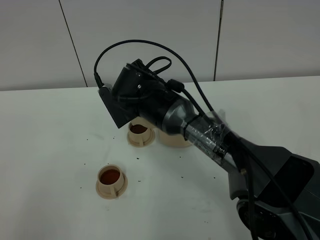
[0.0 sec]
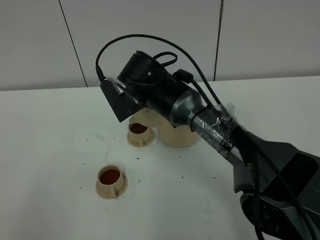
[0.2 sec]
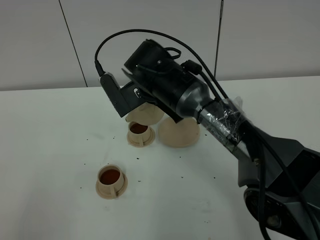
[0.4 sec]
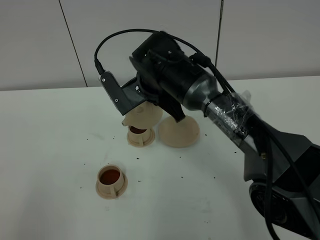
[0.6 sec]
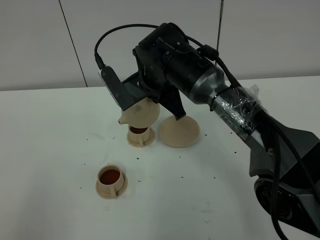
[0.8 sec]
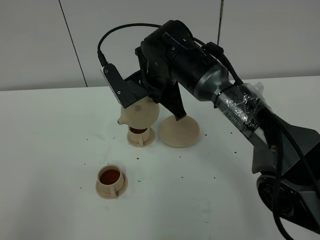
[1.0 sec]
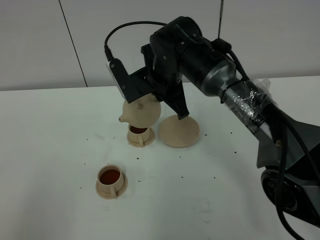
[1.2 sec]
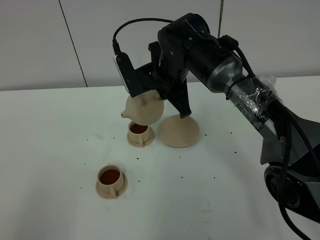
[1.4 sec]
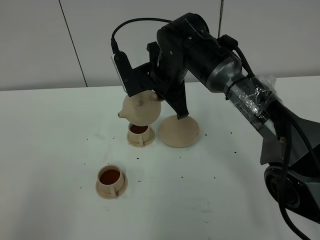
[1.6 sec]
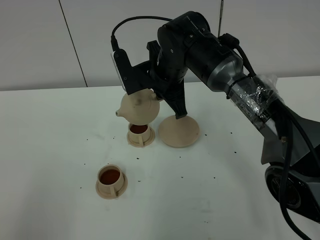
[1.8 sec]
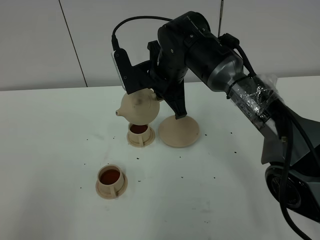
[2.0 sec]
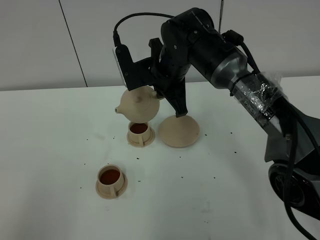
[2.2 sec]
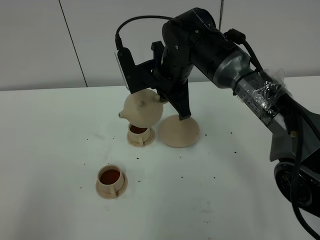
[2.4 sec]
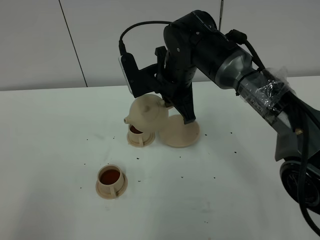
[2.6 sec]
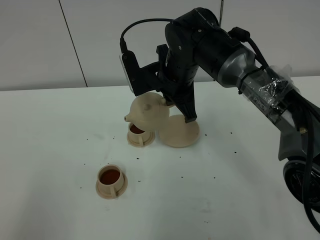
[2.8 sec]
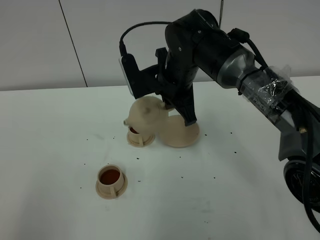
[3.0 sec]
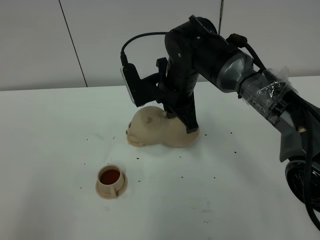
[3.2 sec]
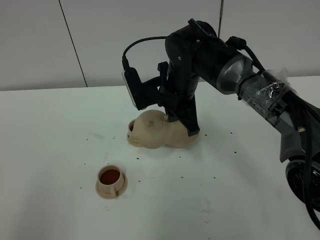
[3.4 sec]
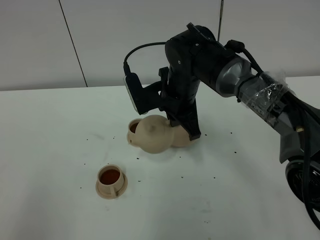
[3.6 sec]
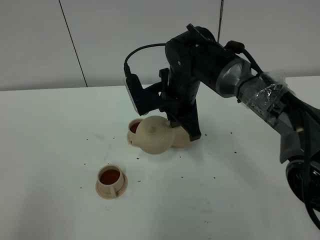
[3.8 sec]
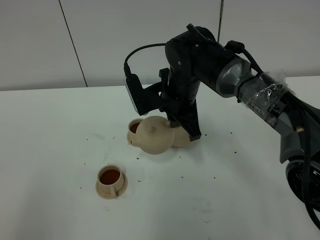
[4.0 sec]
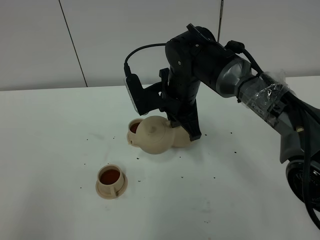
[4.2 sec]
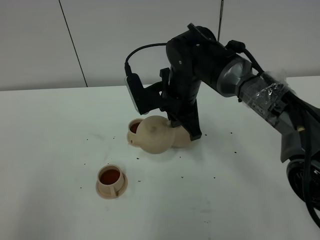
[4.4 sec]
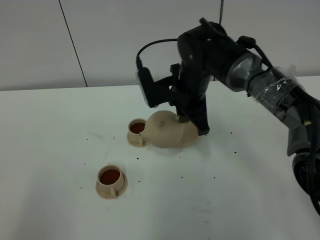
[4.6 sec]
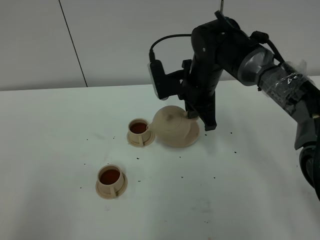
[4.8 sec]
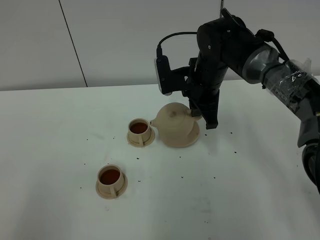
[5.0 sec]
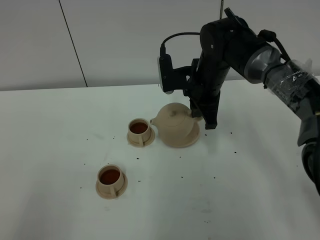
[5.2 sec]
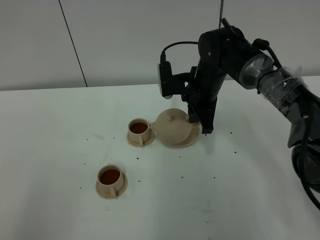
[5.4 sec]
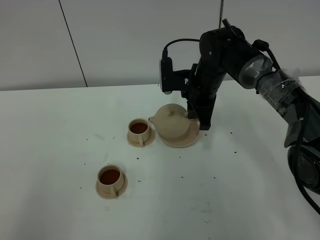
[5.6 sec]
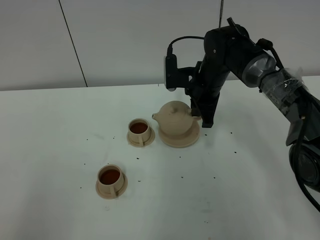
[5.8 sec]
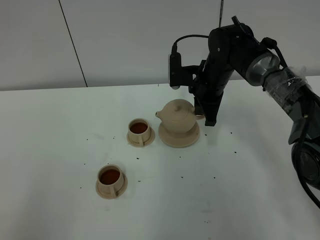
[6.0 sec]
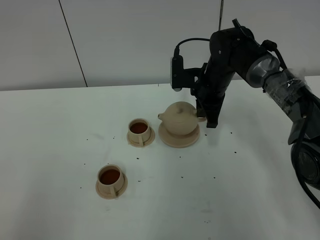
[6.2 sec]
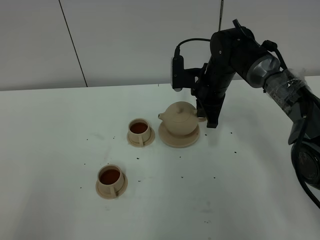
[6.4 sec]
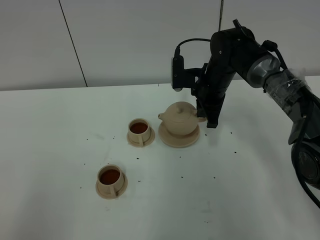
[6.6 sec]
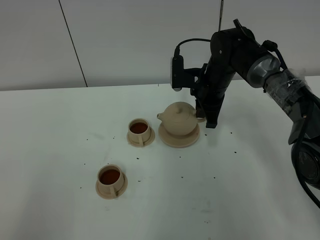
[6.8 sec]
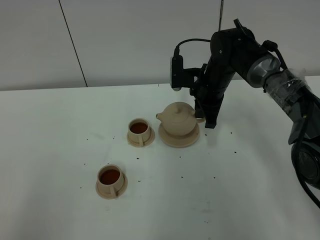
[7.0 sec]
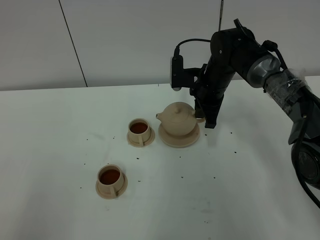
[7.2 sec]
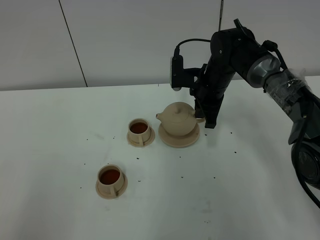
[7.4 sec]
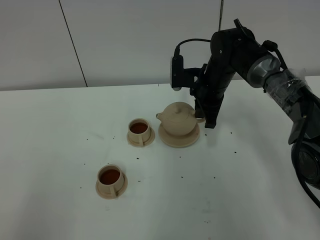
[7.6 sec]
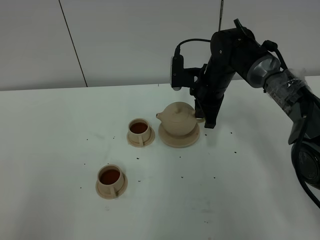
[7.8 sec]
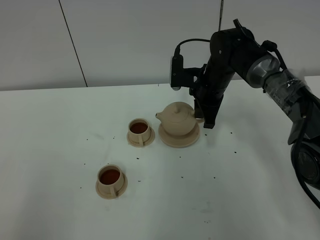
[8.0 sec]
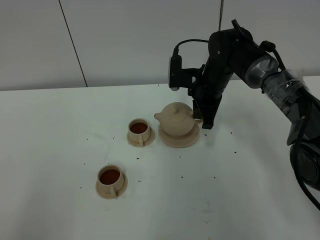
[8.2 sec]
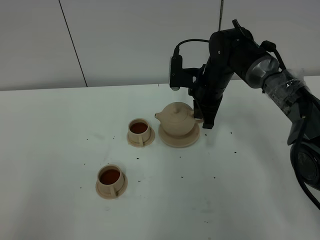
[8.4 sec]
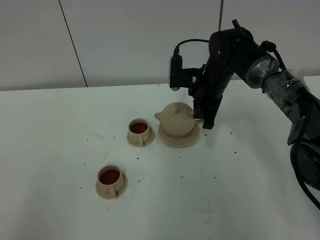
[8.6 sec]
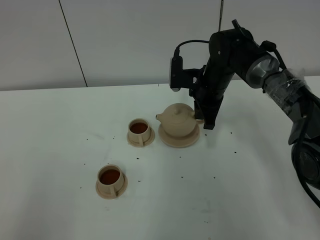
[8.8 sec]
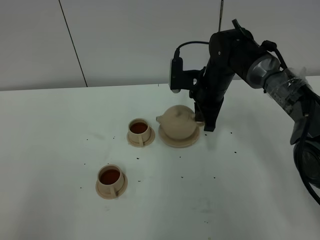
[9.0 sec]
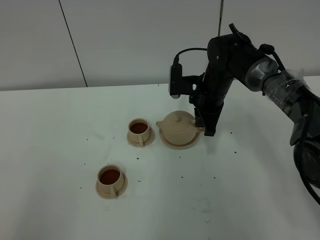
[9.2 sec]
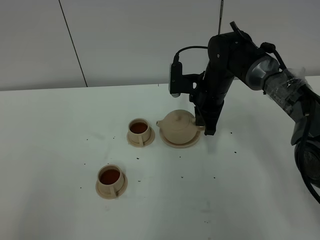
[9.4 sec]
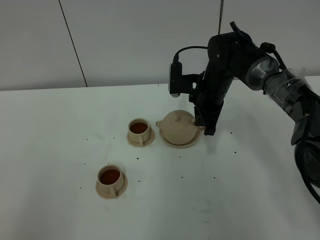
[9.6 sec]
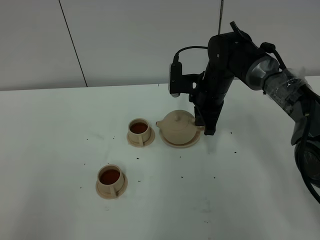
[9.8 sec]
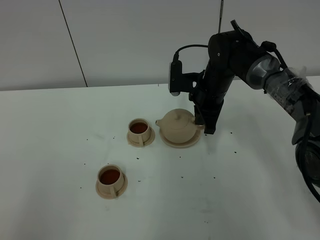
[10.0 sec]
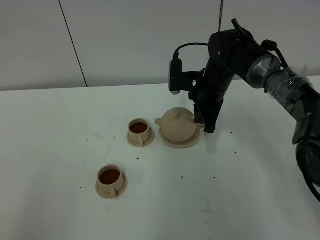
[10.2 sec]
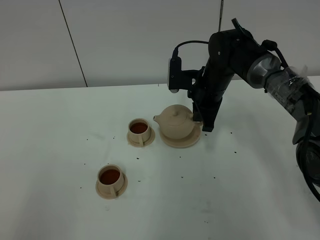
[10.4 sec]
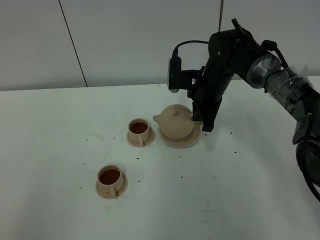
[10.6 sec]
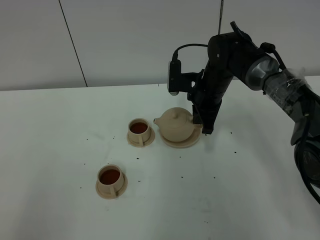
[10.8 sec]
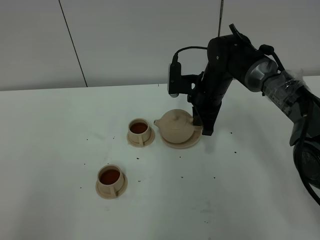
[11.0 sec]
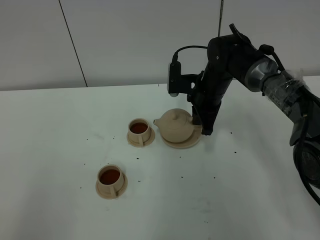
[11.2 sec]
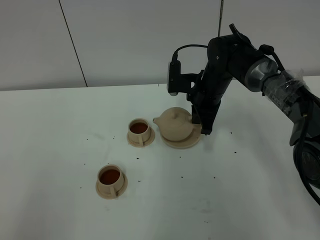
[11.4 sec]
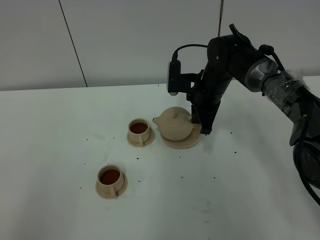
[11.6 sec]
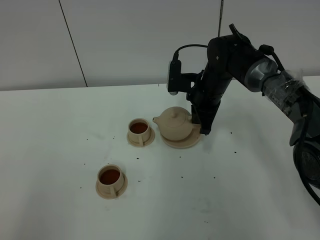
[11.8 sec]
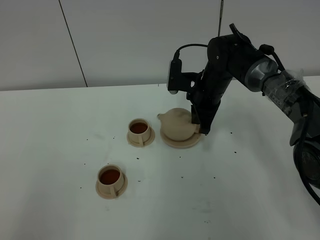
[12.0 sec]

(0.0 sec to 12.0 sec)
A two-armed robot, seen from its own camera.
Task of the whole recording: grasp the brown teapot and pour the tea into the two brown teacups one by one, put the brown teapot back in its original place.
0.0 sec - 1.6 sec: The right gripper ends up about 5 cm from where it was.
1.6 sec - 4.4 sec: There are only small adjustments of the grippers.
4.4 sec - 6.0 sec: The right gripper goes roughly 10 cm forward and to the right.
6.0 sec - 9.0 sec: Both grippers stay about where they are.
9.0 sec - 12.0 sec: Both grippers stay about where they are.

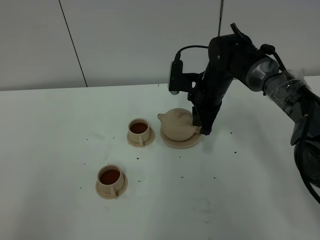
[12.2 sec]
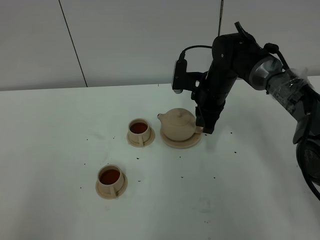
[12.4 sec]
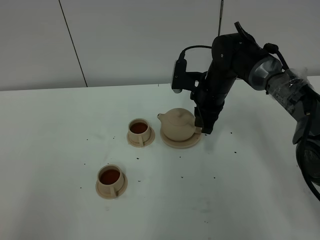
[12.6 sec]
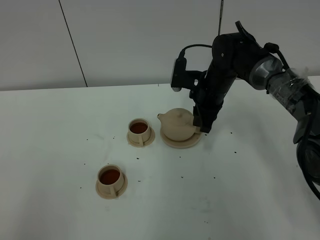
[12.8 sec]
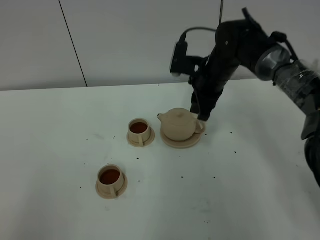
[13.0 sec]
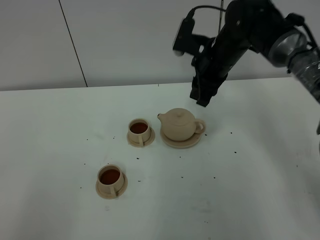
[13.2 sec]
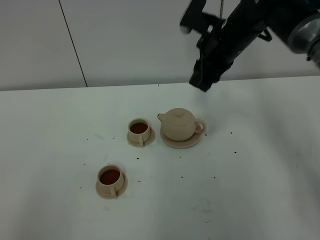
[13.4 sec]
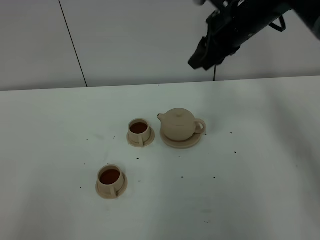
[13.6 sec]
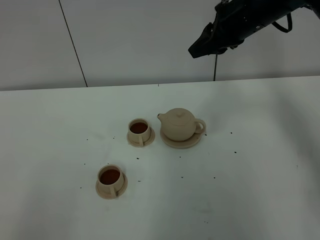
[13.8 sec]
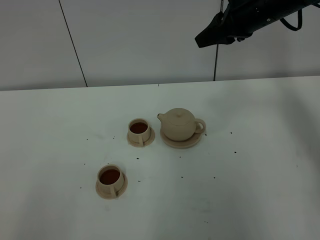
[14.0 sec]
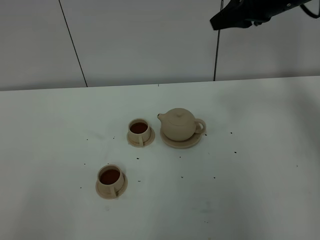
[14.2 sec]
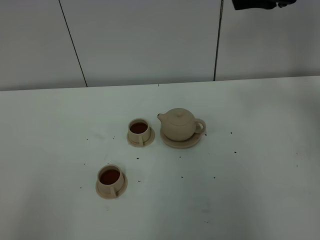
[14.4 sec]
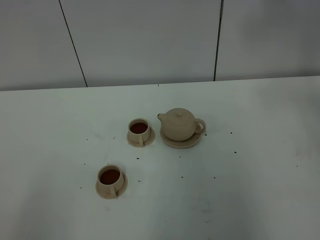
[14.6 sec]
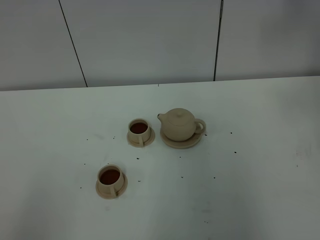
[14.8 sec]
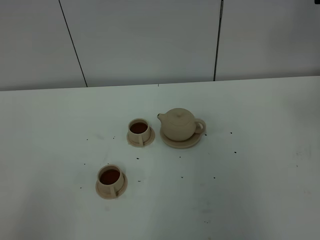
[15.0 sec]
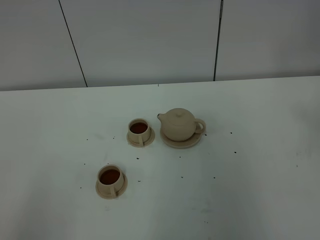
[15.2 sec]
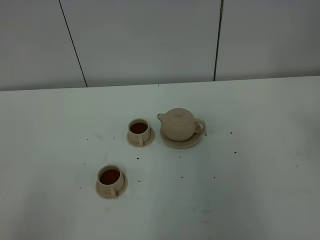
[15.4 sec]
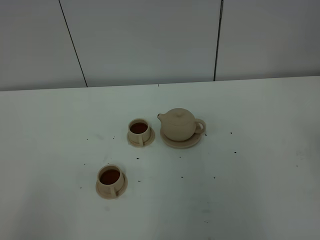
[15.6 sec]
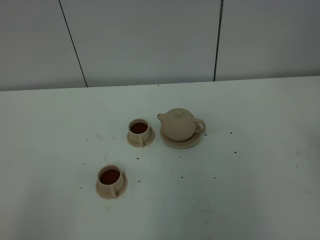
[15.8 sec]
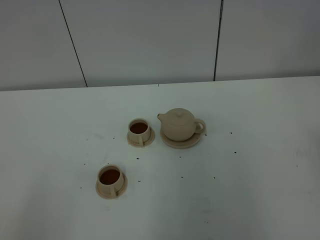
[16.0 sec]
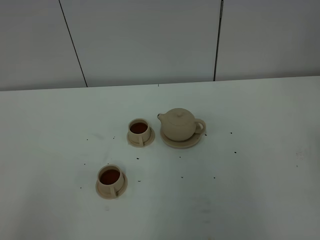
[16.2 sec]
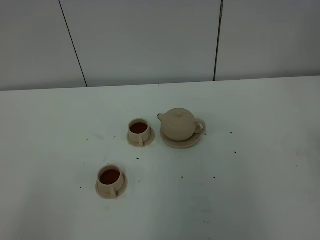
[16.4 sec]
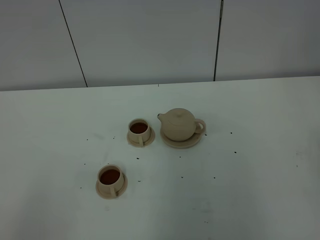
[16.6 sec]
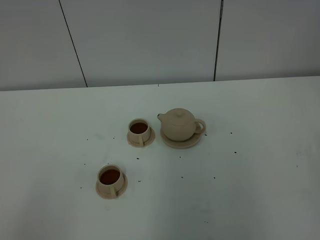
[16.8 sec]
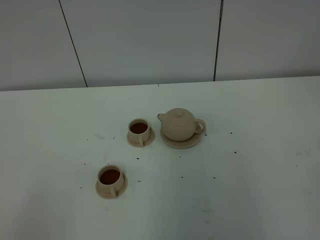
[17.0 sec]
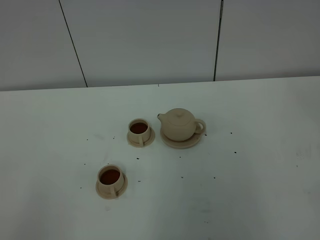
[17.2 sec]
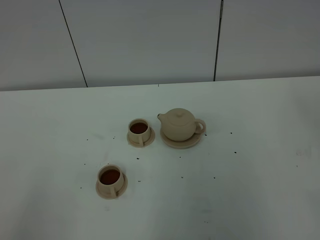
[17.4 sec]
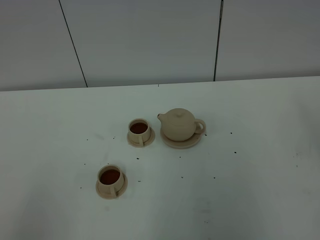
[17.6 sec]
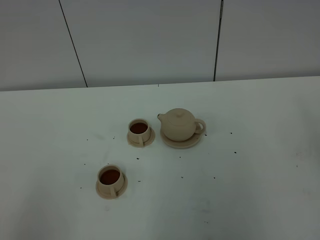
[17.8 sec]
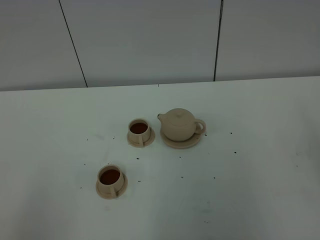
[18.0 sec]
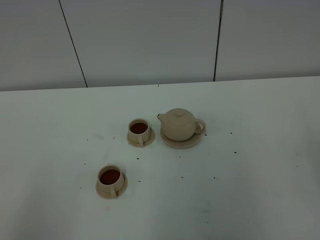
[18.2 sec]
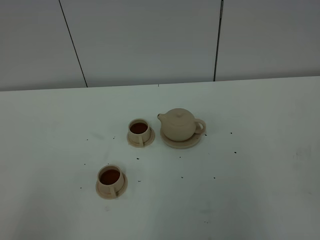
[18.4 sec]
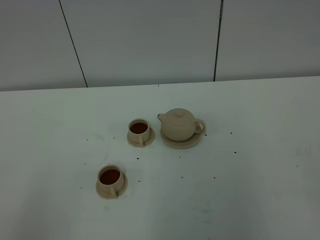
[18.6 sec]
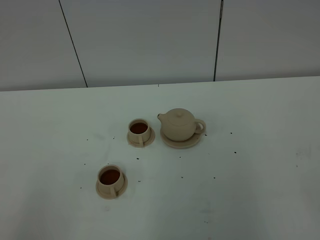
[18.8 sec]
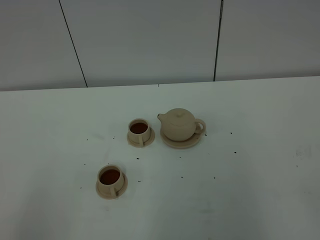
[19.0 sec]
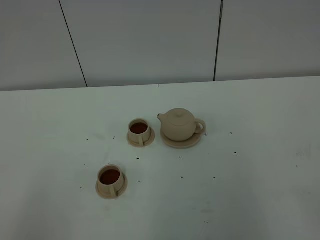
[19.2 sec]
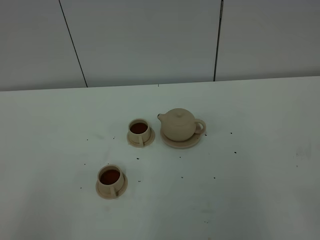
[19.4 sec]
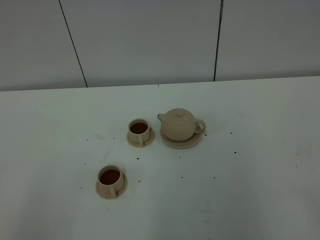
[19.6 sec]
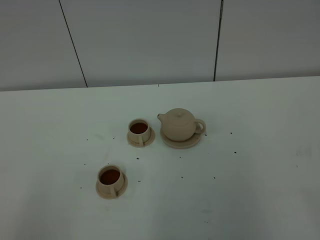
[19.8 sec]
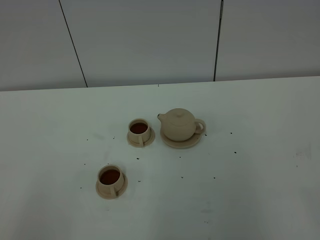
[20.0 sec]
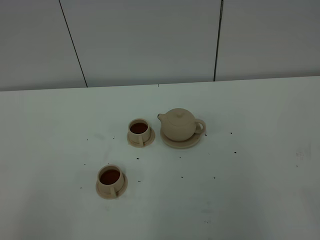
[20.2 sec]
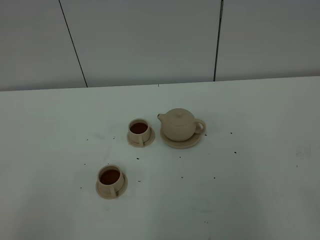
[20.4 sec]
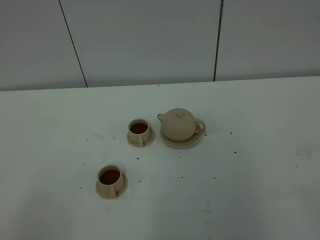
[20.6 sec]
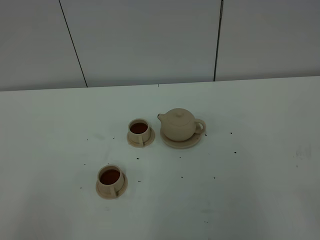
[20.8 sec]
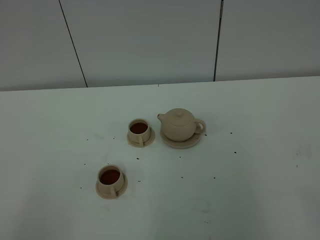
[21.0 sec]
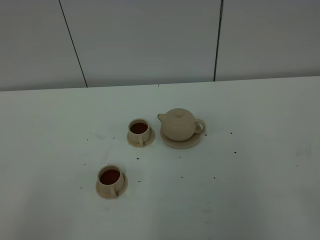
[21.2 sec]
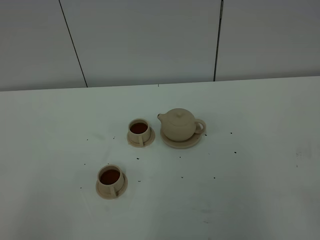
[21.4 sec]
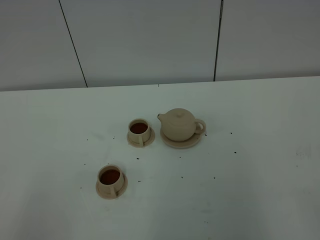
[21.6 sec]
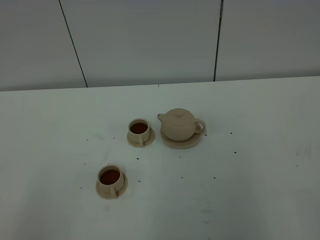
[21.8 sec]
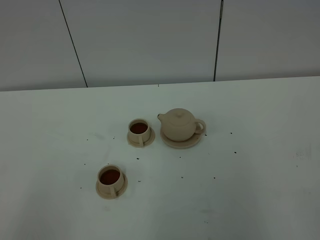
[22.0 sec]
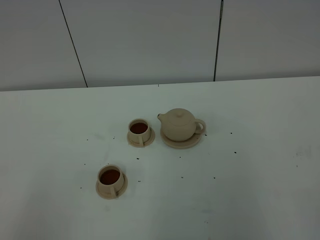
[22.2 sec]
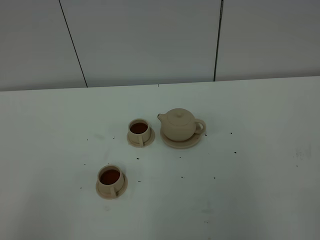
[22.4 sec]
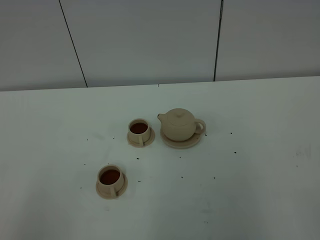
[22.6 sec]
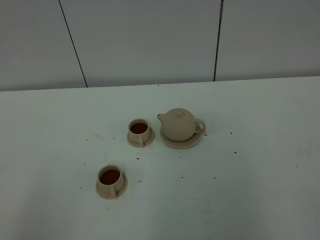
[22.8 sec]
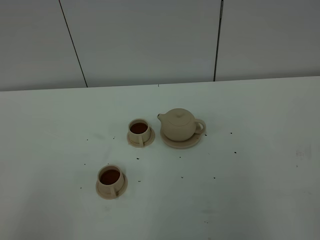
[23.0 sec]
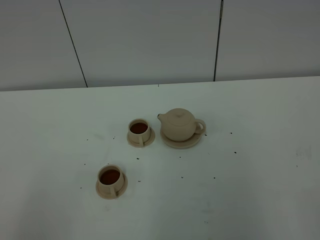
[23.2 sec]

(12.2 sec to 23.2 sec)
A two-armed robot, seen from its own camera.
Task of the whole recording: grasp the brown teapot and pour the tea into the two brown teacups one by one, put the brown teapot back in its original place.
12.2 sec - 13.8 sec: The right gripper moves upward, about 15 cm.
13.8 sec - 15.4 sec: The right gripper is displaced to the right, backward and upward by about 25 cm, and closes.
